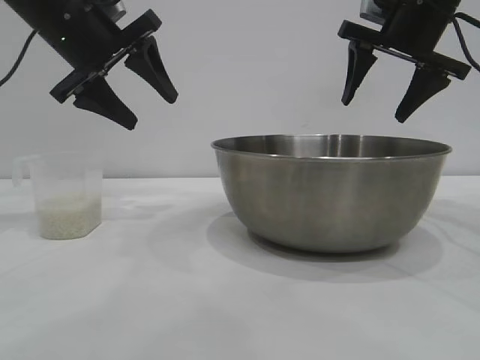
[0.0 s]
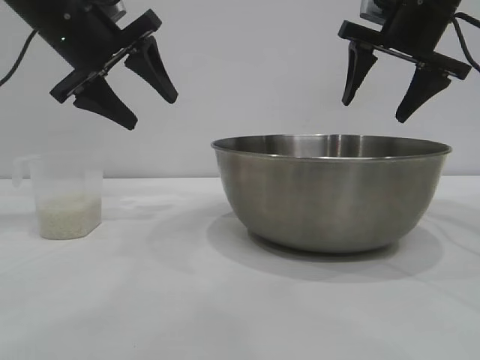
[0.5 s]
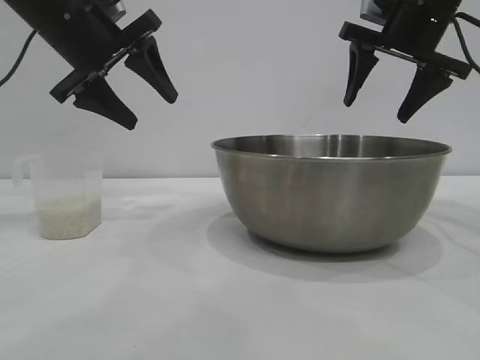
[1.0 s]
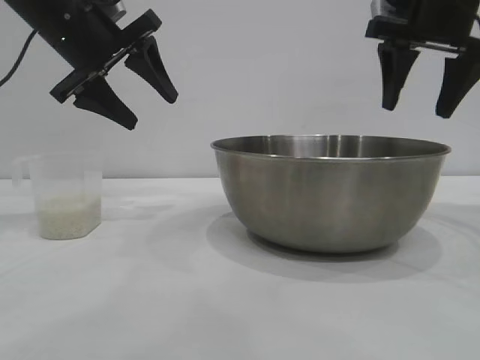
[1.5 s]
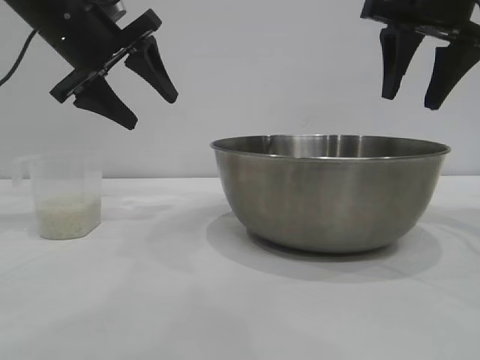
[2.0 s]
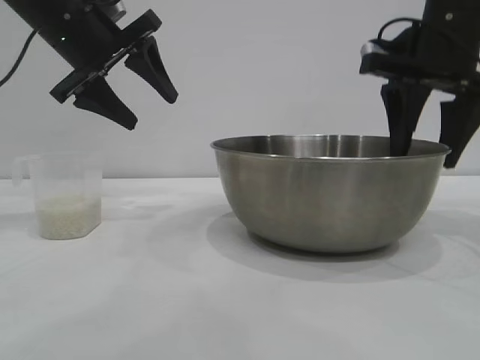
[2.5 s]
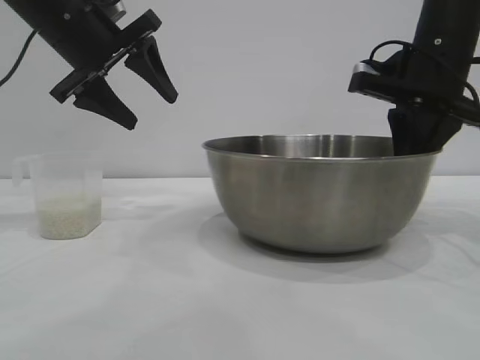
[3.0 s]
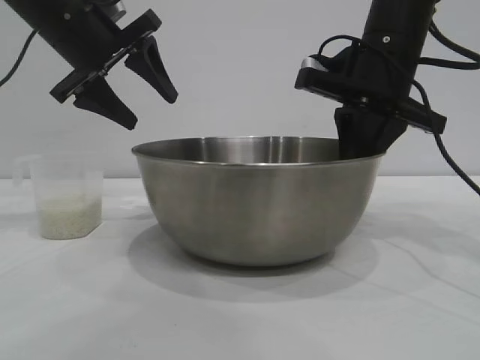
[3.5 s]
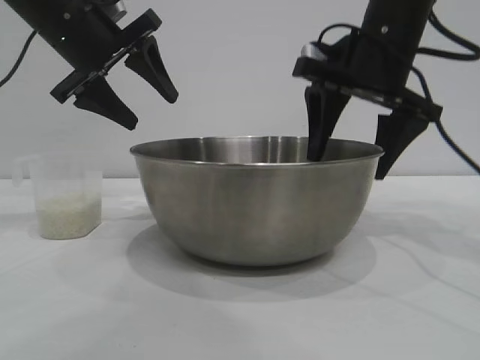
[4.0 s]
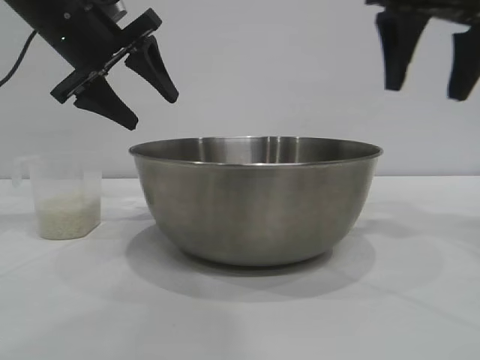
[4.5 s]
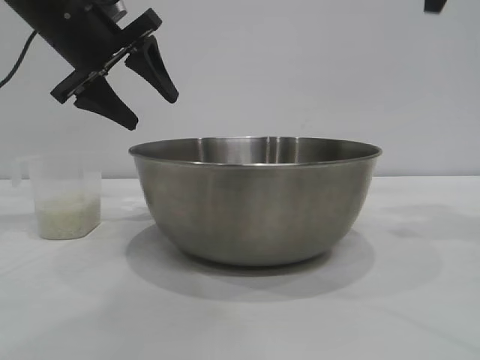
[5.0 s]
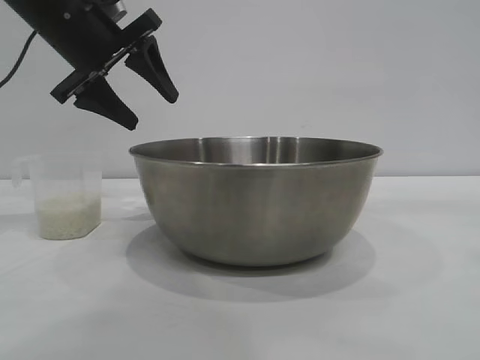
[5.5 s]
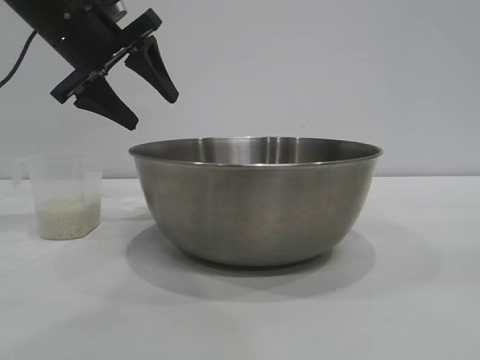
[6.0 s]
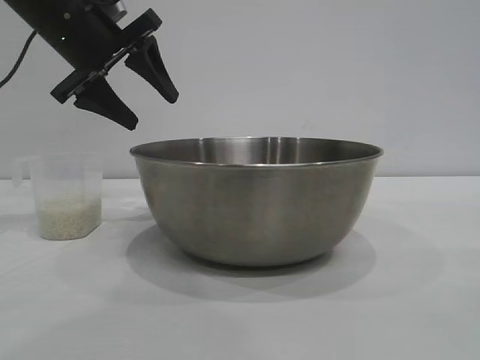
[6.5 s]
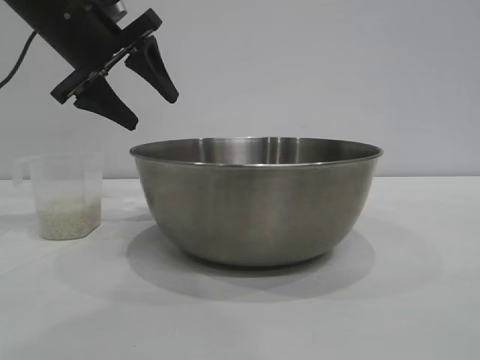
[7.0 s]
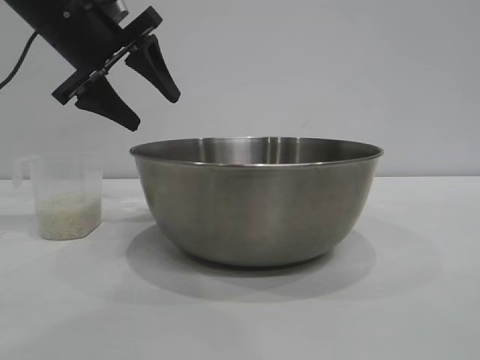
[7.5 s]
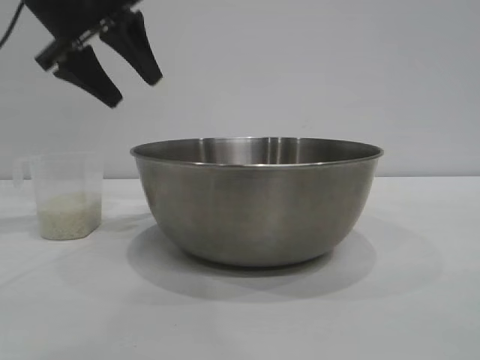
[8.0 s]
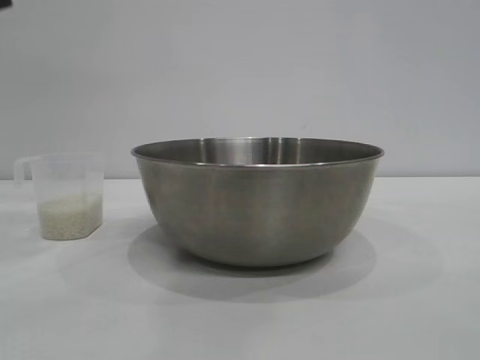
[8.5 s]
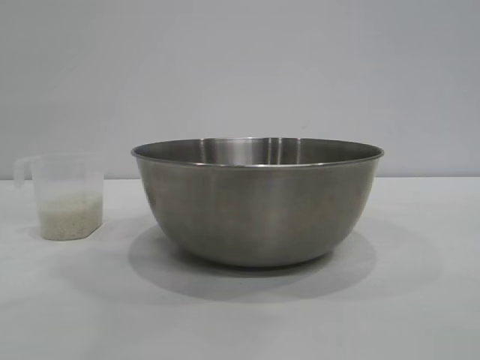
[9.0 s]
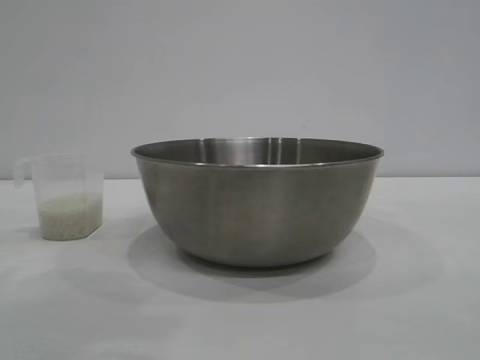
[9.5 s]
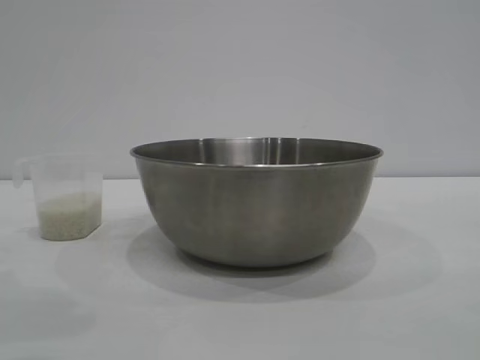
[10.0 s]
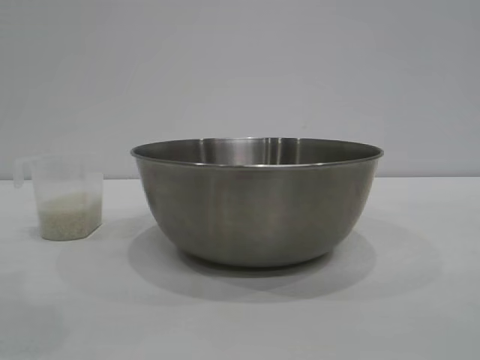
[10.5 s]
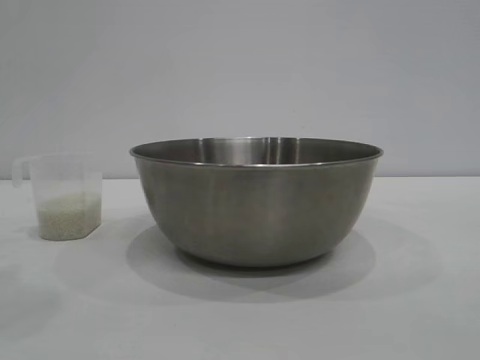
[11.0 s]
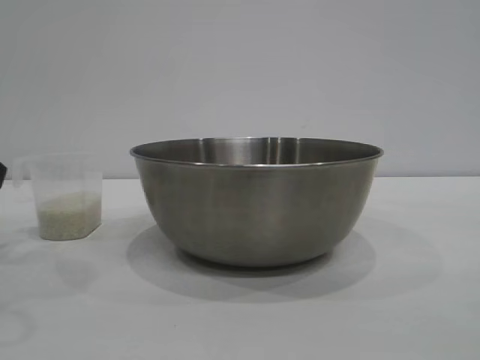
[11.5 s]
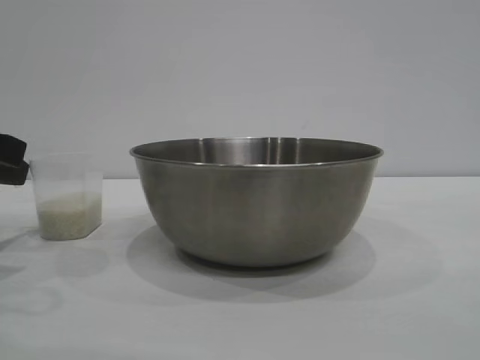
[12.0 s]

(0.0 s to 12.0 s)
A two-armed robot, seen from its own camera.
Task of the whole recording: the right gripper grasp the rice container and place it in the center of the table, the left gripper grasp the rice scoop and pour the rice into the rice container.
Step, 0.0 s - 4.0 s: Move the bowl to the center of view with the right gripper.

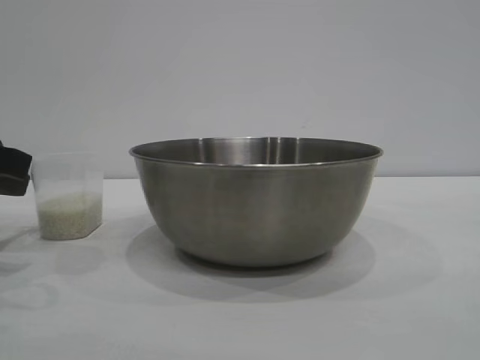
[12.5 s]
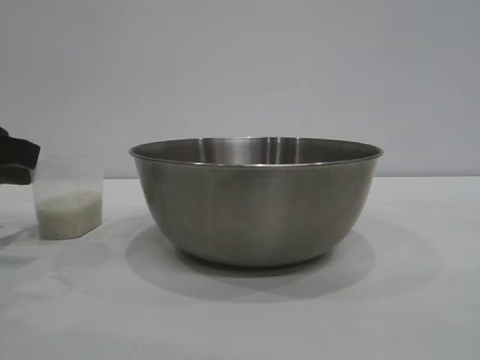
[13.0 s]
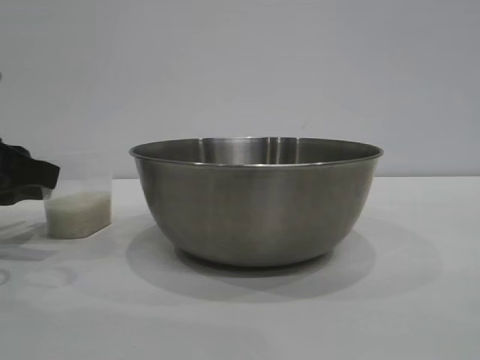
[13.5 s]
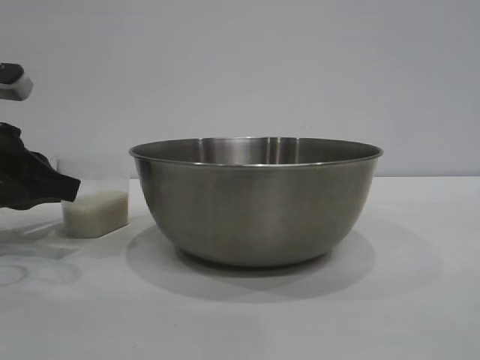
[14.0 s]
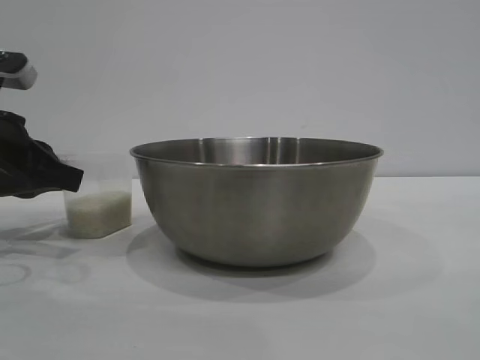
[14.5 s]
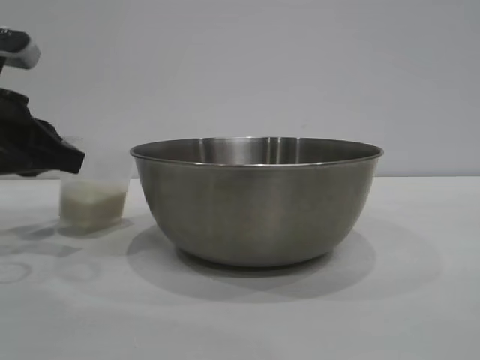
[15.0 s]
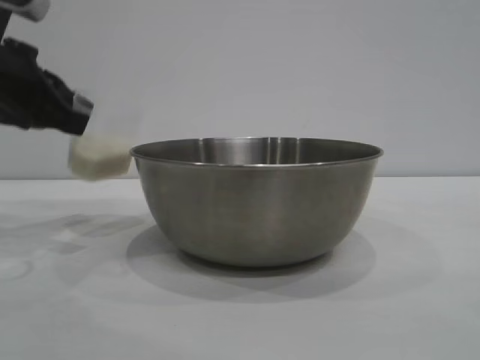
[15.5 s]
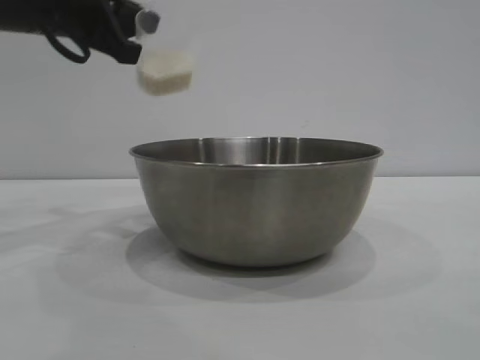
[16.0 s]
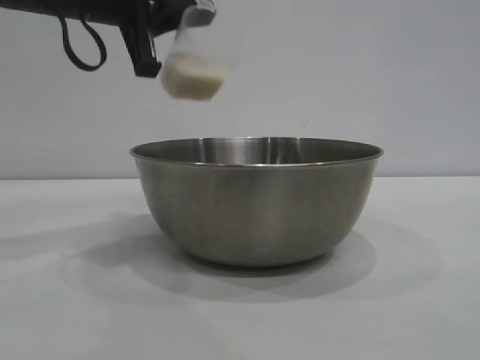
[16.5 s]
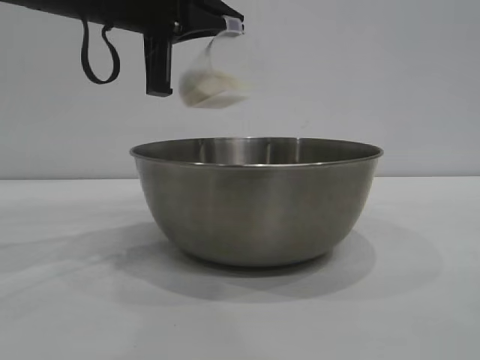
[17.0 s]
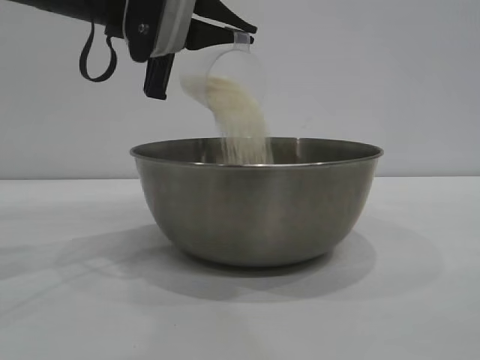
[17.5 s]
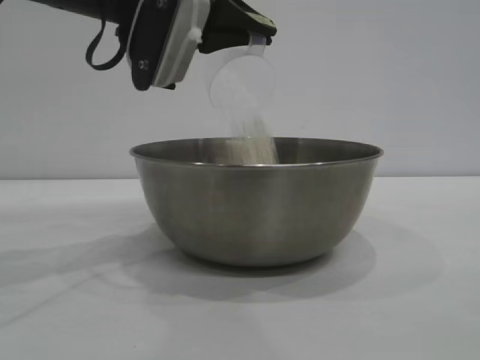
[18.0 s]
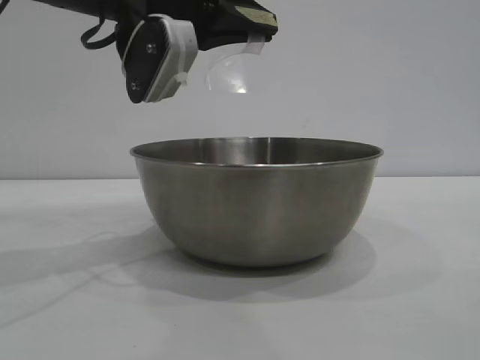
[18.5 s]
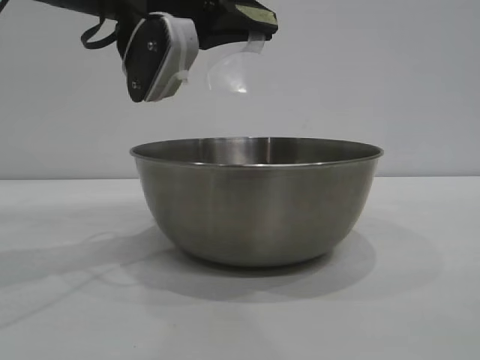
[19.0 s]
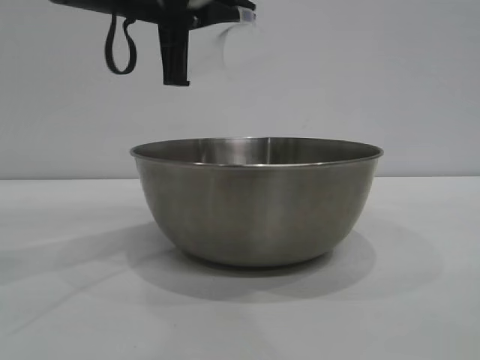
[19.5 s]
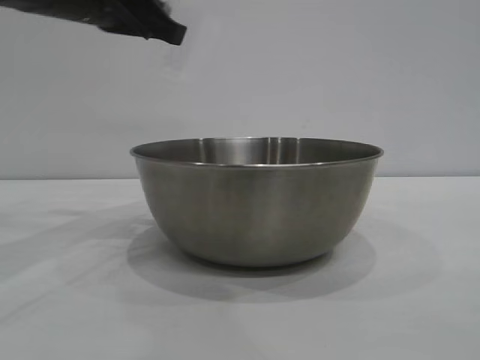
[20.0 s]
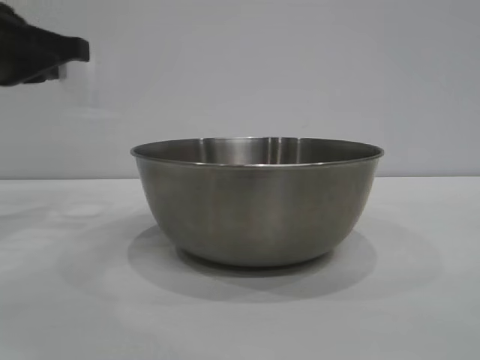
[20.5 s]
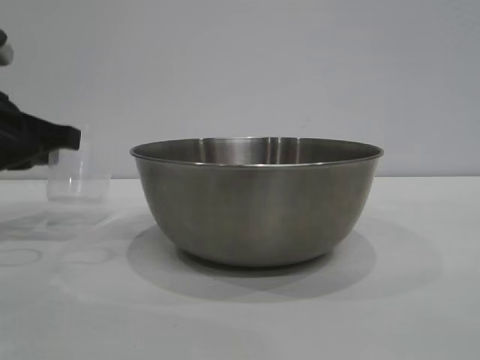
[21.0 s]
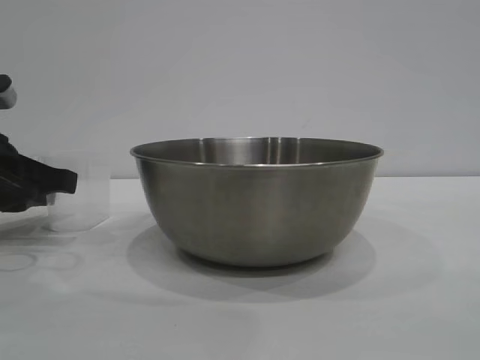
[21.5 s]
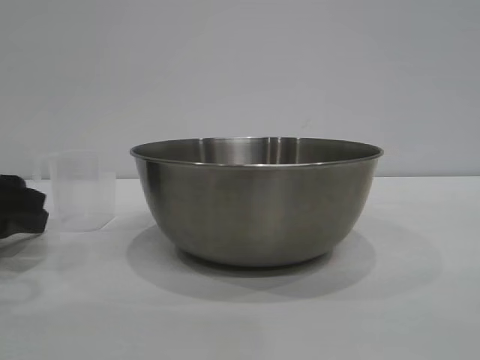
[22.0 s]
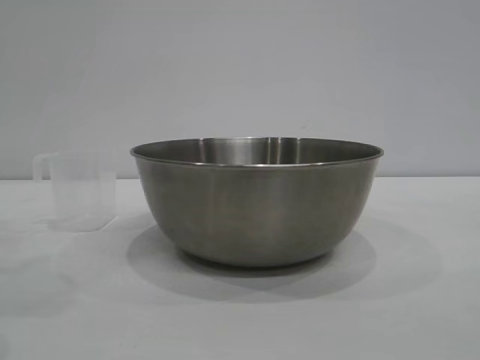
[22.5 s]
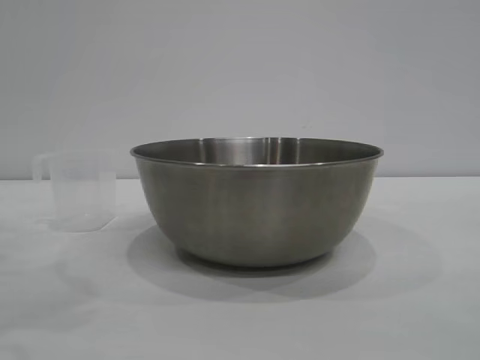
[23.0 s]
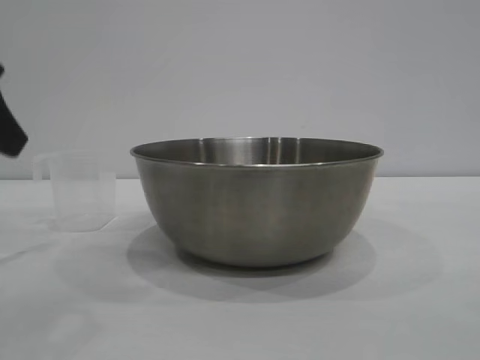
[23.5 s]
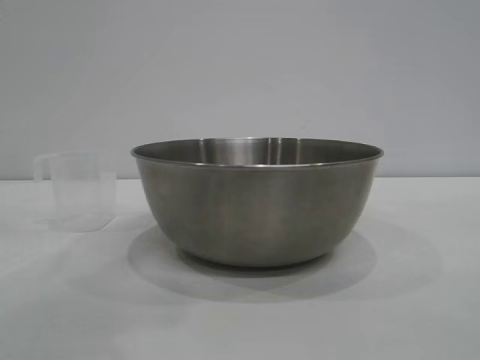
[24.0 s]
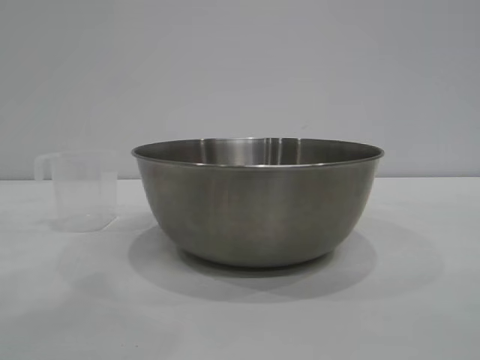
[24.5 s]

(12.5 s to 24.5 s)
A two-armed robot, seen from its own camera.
Task of the whole recording: the right gripper grasp the rice container and place it in the center of the table, the left gripper grasp the rice scoop and pour the rice into the rice container.
Step, 12.5 s - 15.0 s: Pick up the cup with rice in it with the left gripper.
Step, 15.5 s - 19.5 s: Pour the rice from the cup into the bowl with the left gripper.
Step, 20.0 s - 22.0 s: Place the cup on the table with the left gripper.
